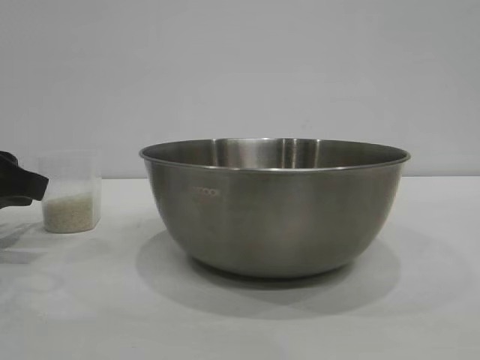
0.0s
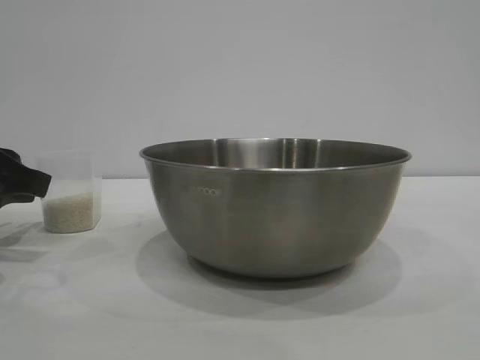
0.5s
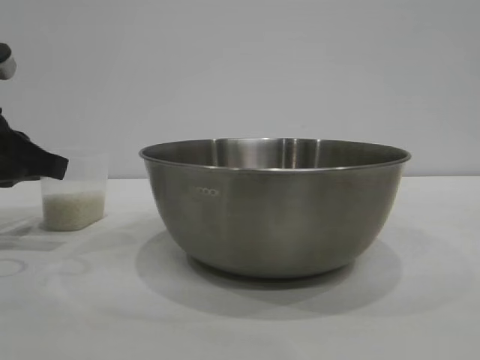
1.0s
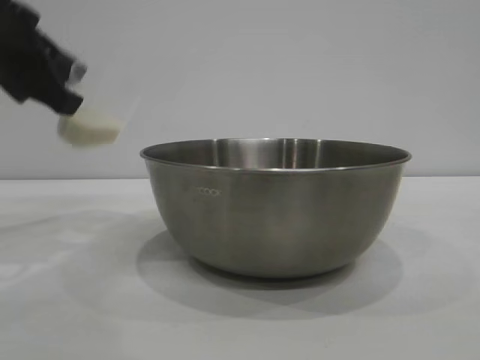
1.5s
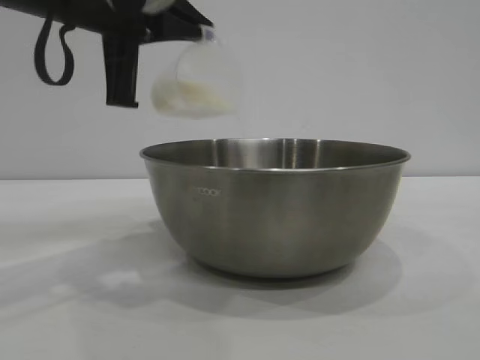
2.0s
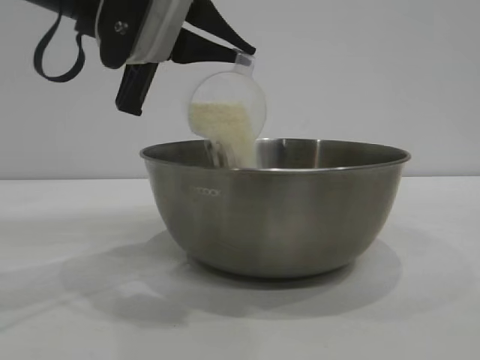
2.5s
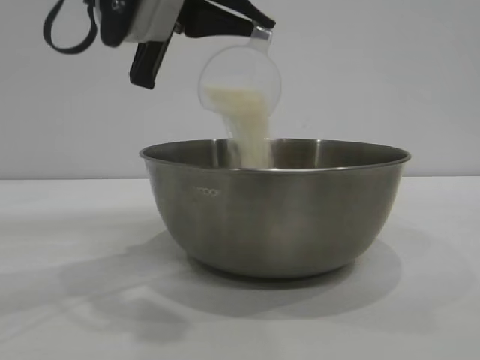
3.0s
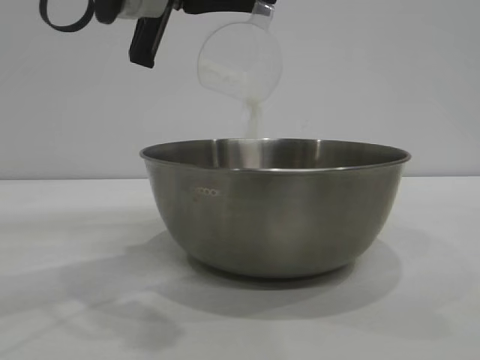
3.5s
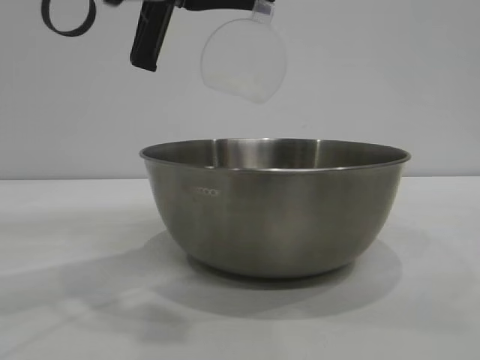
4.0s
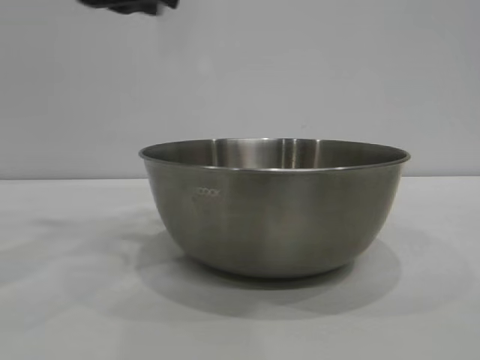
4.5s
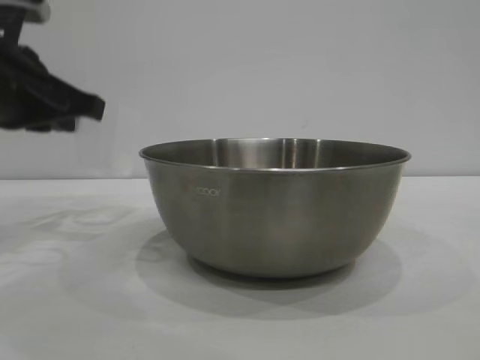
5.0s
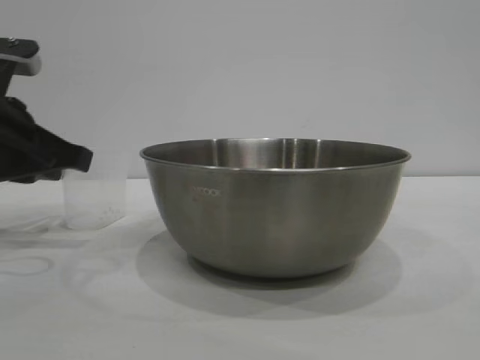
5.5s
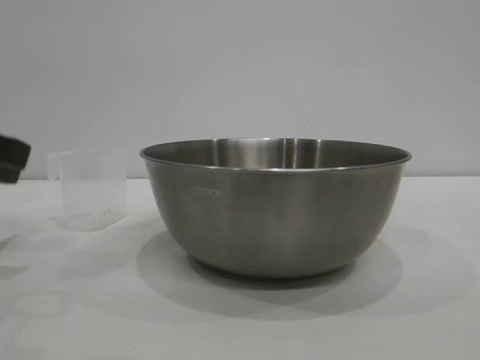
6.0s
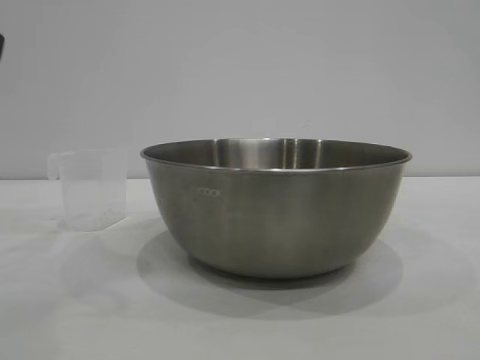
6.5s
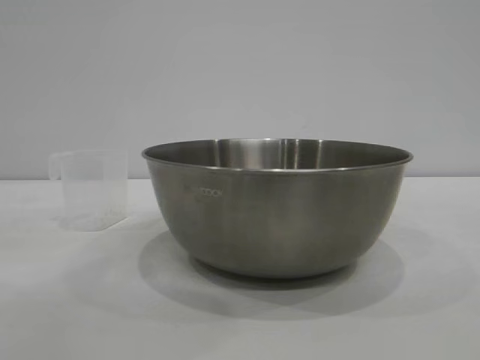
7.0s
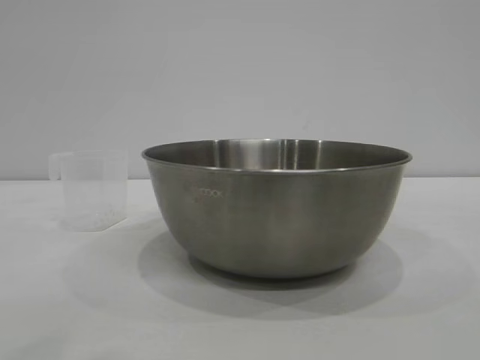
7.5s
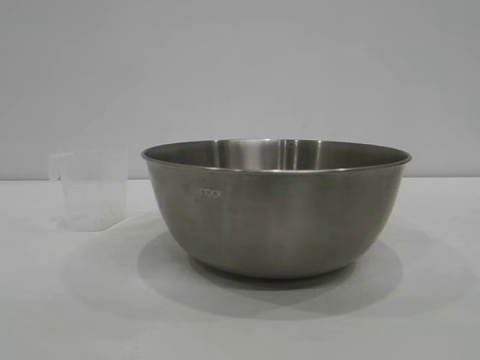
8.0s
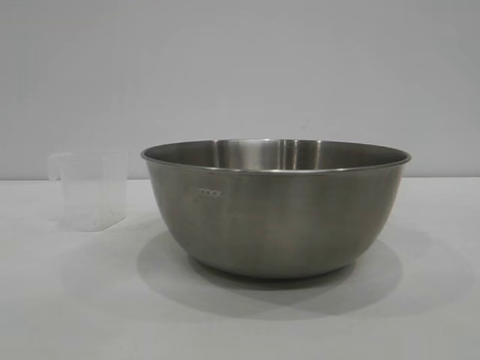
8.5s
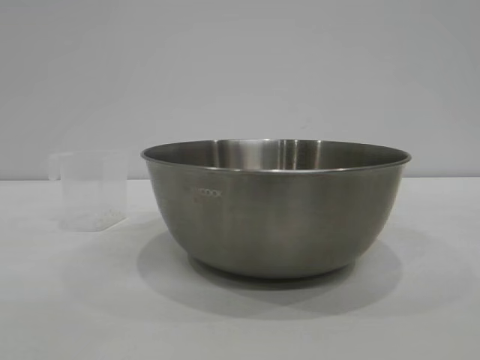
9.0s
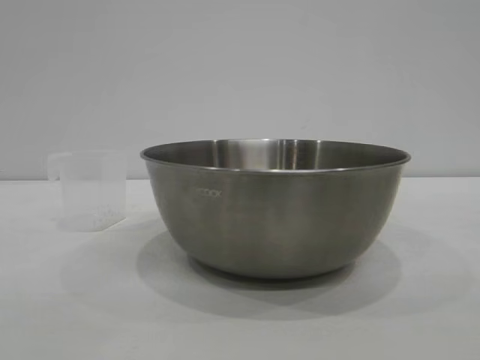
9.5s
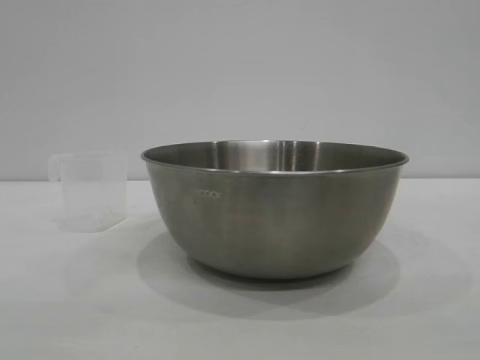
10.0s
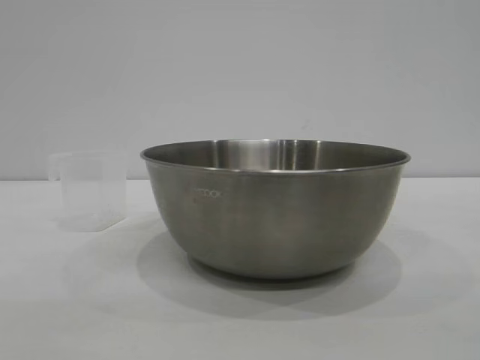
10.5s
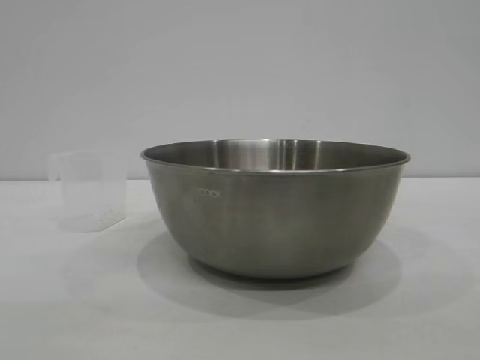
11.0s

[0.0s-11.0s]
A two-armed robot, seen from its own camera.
Task of the whole recording: the right gripper grasp the rice container and place it in the center of the table, the left gripper grasp the rice scoop and pour the rice into the rice container.
Step, 1.5s to 4.0s: Pour the rice from the cup into the bowl with the left gripper.
Step, 4.5s to 6.0s: Place the cup on the table with the left gripper.
